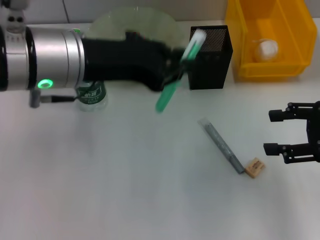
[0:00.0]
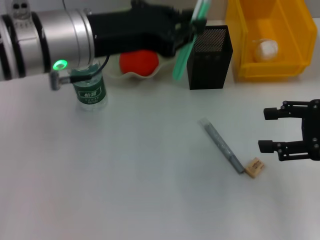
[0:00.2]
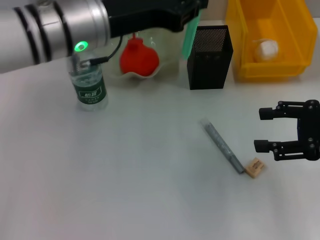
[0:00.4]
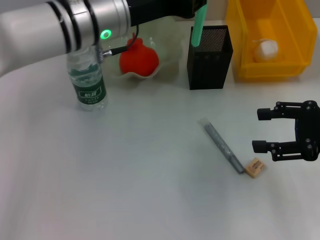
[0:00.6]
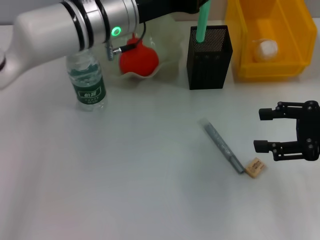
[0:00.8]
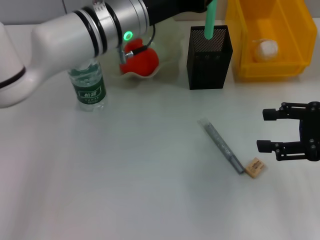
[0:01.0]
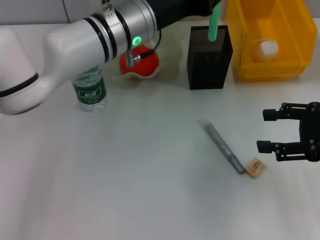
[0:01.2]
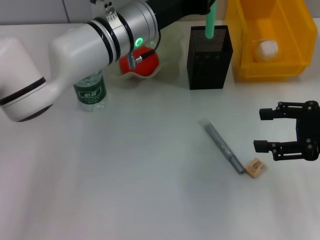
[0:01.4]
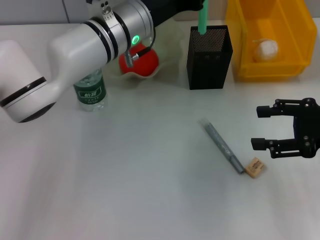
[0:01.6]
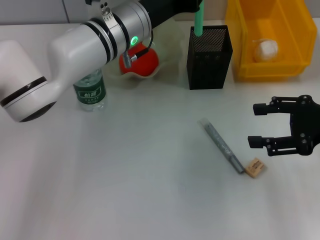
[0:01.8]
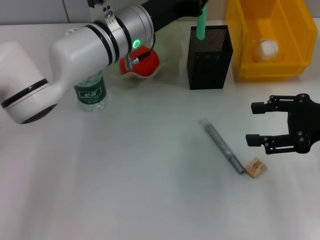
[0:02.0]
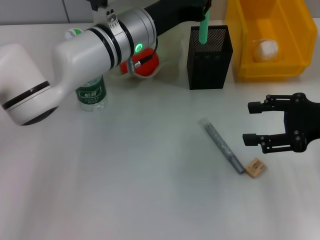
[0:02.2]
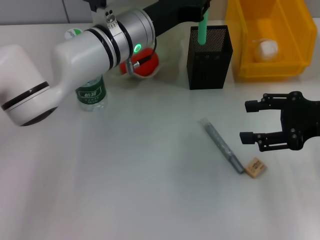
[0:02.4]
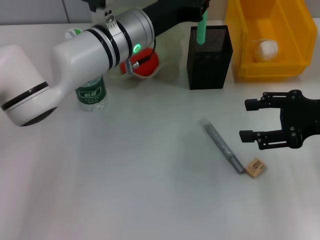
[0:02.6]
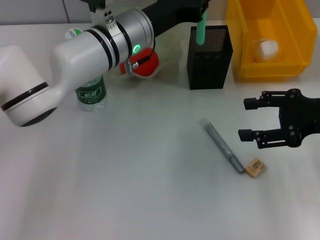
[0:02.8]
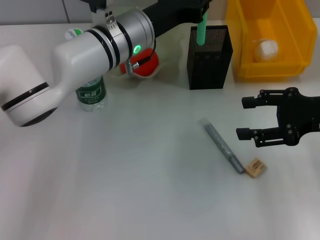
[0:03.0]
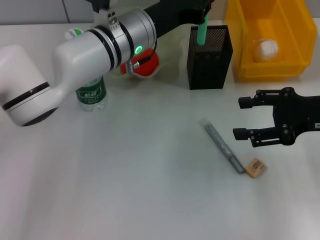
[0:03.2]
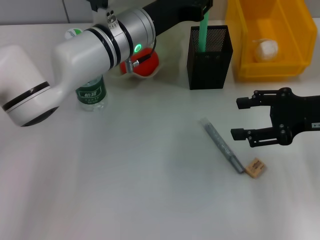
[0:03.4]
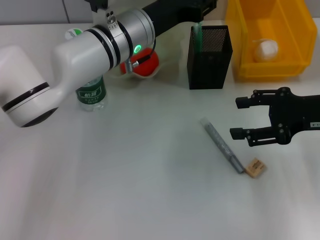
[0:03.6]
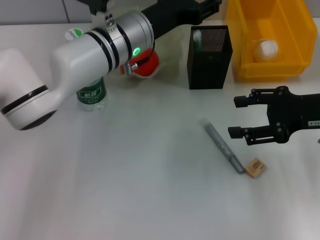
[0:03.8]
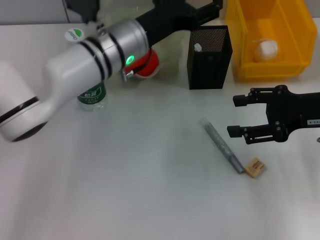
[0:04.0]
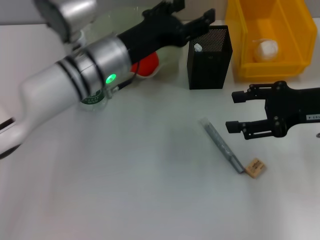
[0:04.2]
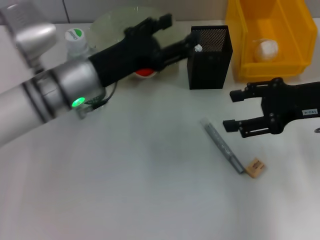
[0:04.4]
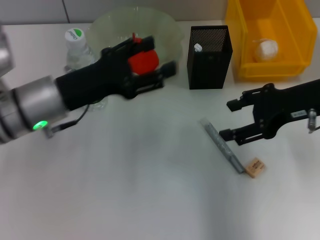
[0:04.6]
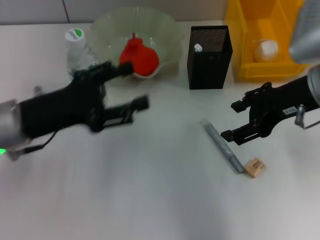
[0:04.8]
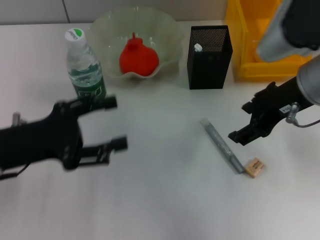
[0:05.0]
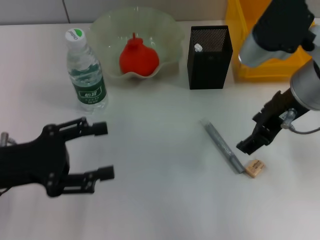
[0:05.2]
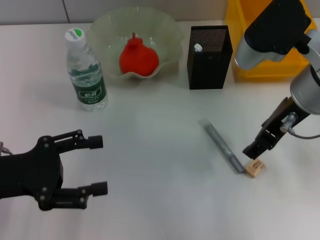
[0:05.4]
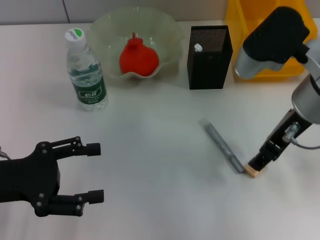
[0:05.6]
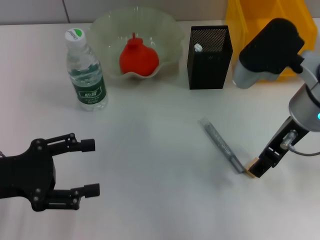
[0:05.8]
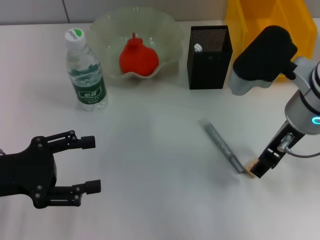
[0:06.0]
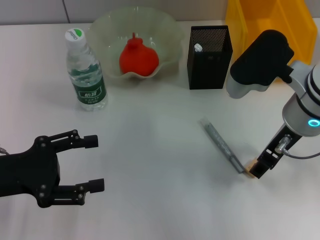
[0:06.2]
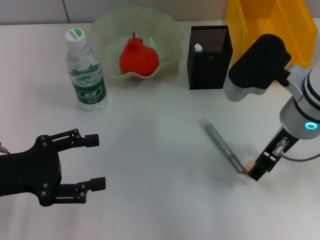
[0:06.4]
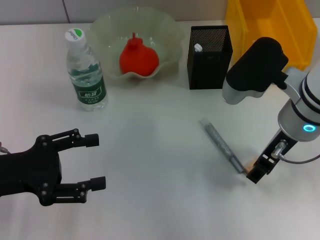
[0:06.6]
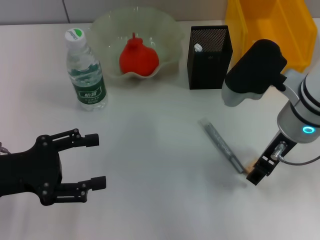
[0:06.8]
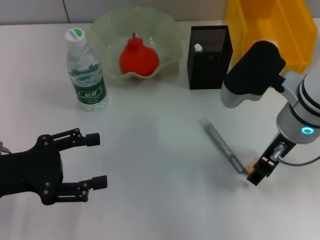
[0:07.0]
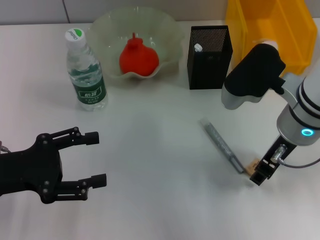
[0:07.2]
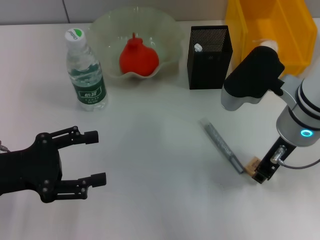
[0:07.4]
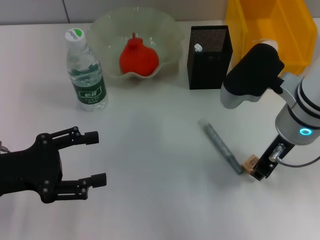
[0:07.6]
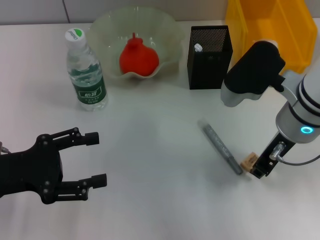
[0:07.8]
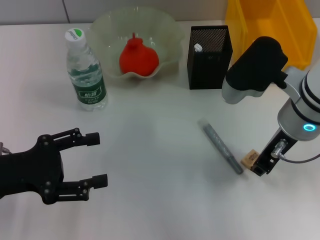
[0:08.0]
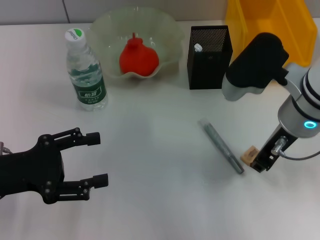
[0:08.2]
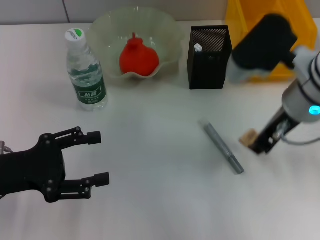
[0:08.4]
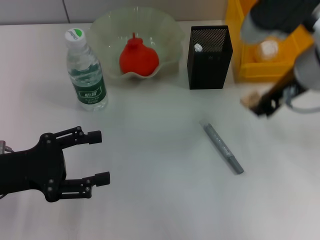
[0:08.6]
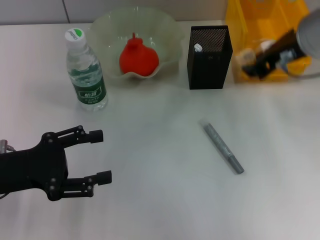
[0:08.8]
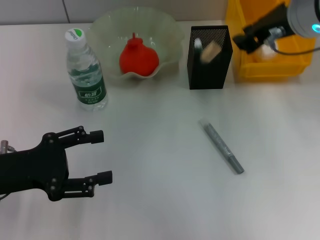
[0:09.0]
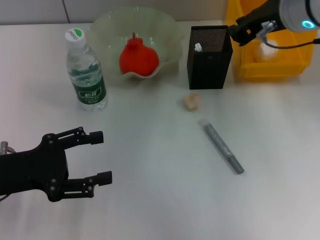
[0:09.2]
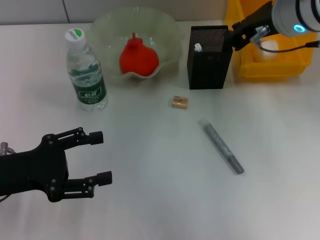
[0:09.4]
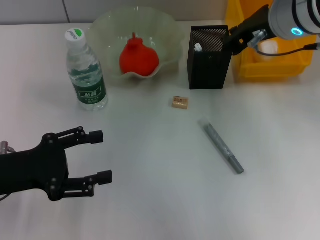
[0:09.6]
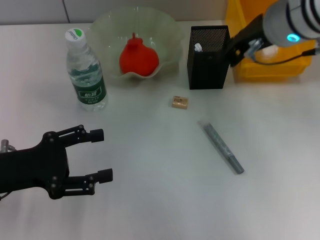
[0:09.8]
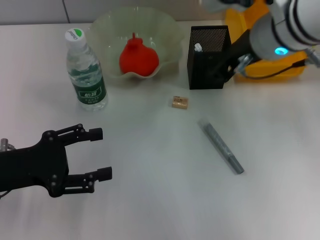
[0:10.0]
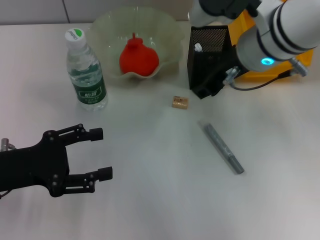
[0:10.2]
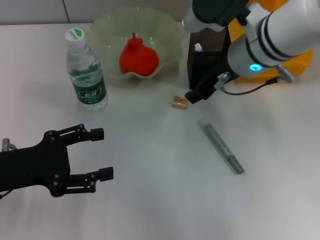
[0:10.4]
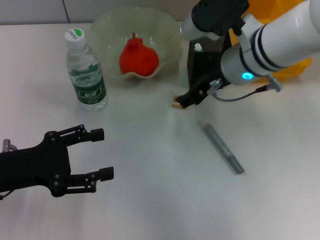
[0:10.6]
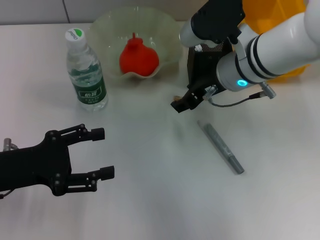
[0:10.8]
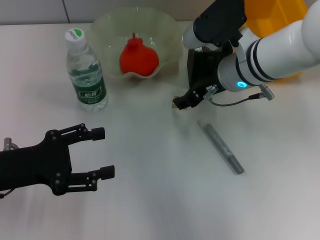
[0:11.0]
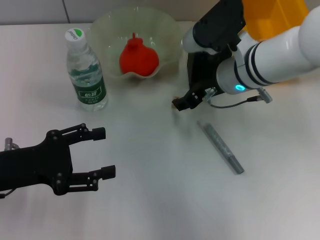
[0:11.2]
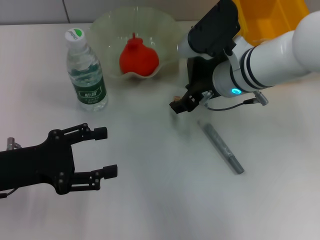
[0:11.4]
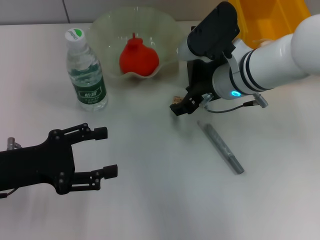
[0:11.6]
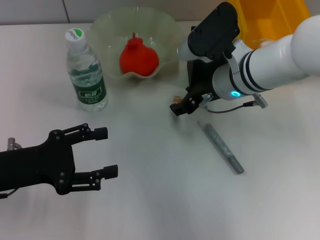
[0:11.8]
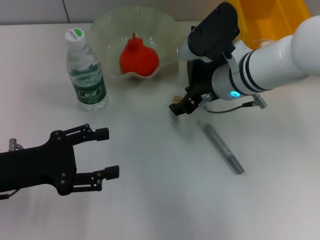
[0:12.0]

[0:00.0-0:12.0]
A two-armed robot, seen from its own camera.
Step, 0:00.0 to 0:04.0: Place the blue utility knife into the pen holder with the left hand.
Step, 0:04.4 to 0:07.2: Grab the eraser with the right hand.
0:00.0 to 0:01.6: The left gripper shifts approximately 15 cm forward, downward and to the right.
0:01.6 to 0:03.0: The grippers stay close to where they were, moving slightly.
0:03.0 to 0:04.4: The left gripper goes approximately 10 cm to the left and backward, and opens up.
0:04.4 to 0:06.0: The right gripper moves to the left, approximately 10 cm, while the left gripper goes some 20 cm to the left and backward.
0:06.0 to 0:07.6: The right gripper closes.
0:07.6 to 0:09.0: The right gripper heads upward, covering roughly 10 cm.
0:09.0 to 0:10.4: The right gripper moves downward and to the left, about 10 cm, and opens up.
0:10.4 to 0:12.0: The right gripper travels downward by some 5 cm.

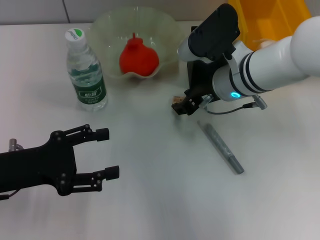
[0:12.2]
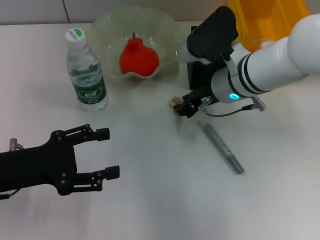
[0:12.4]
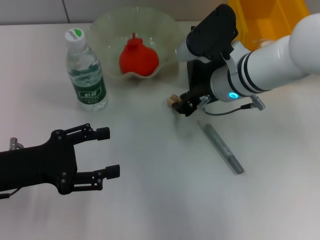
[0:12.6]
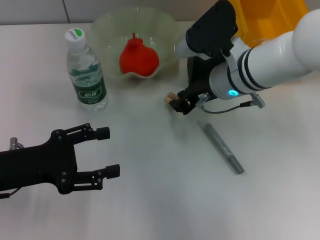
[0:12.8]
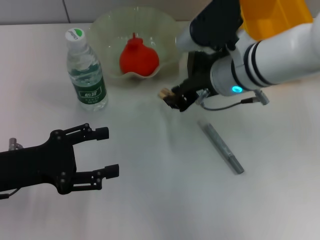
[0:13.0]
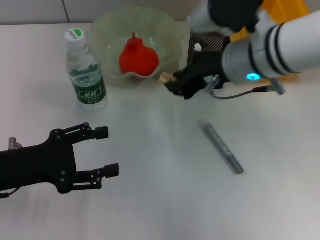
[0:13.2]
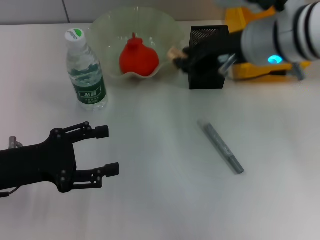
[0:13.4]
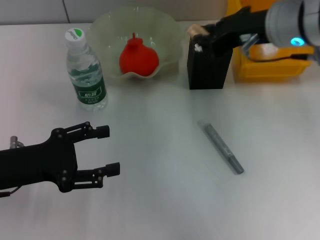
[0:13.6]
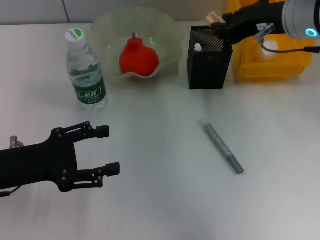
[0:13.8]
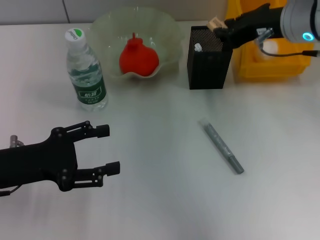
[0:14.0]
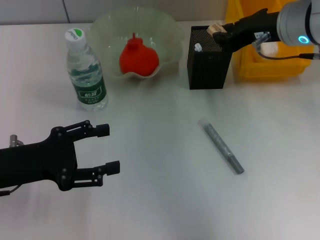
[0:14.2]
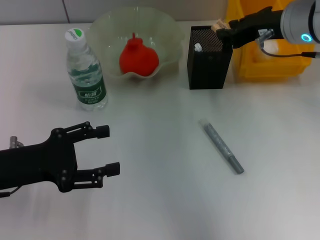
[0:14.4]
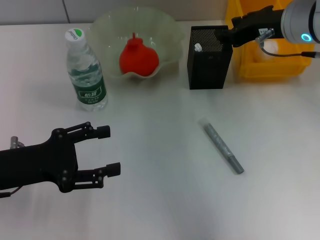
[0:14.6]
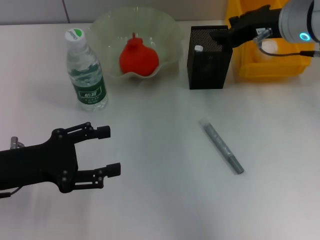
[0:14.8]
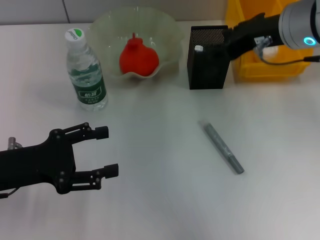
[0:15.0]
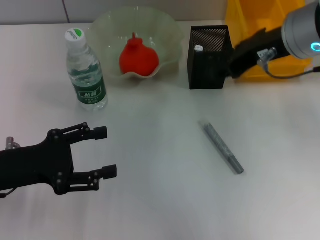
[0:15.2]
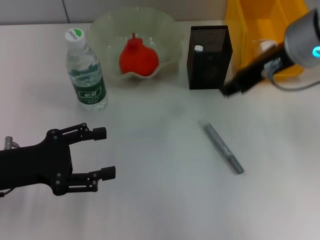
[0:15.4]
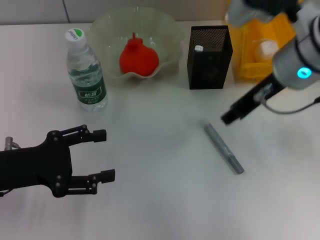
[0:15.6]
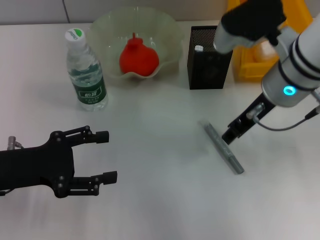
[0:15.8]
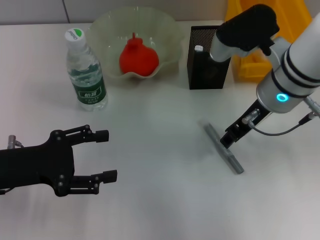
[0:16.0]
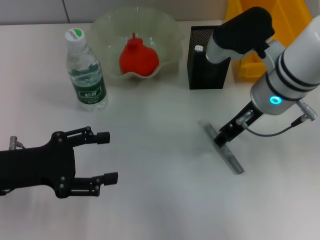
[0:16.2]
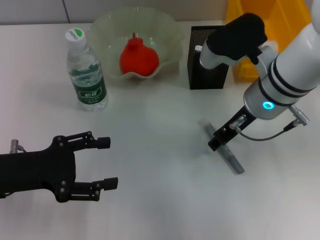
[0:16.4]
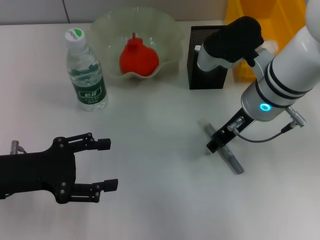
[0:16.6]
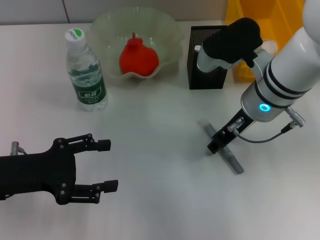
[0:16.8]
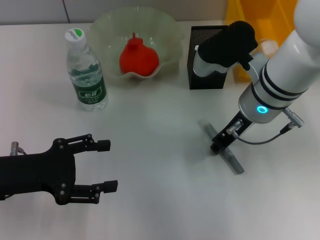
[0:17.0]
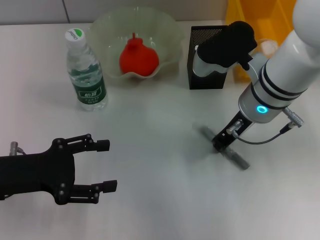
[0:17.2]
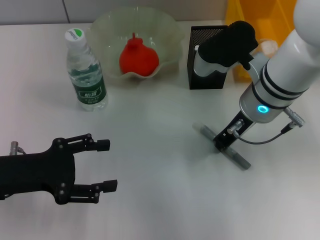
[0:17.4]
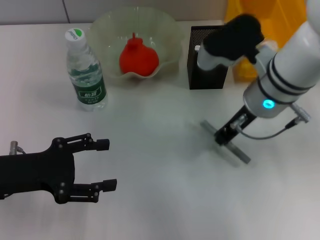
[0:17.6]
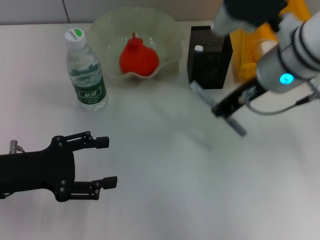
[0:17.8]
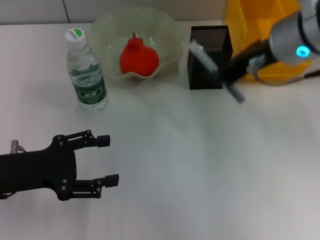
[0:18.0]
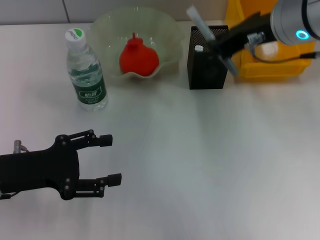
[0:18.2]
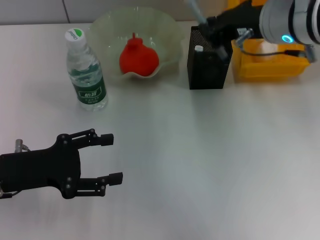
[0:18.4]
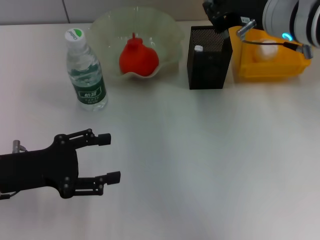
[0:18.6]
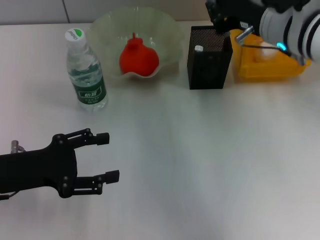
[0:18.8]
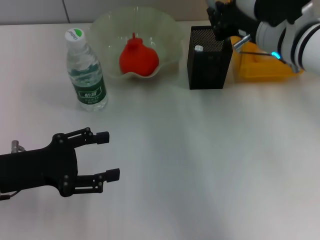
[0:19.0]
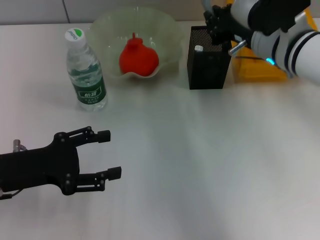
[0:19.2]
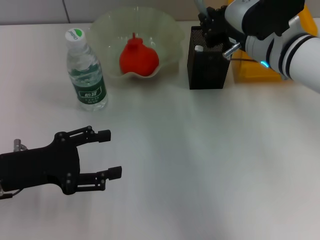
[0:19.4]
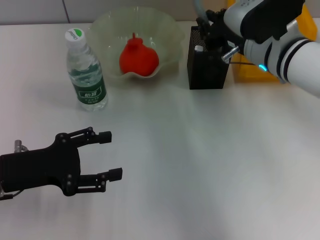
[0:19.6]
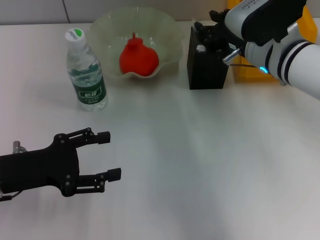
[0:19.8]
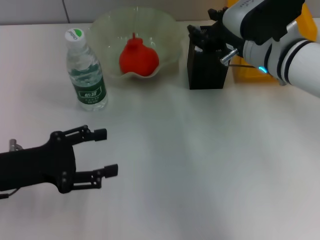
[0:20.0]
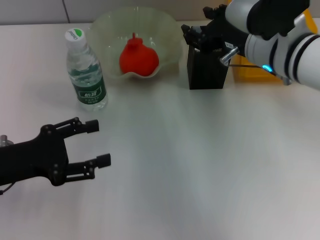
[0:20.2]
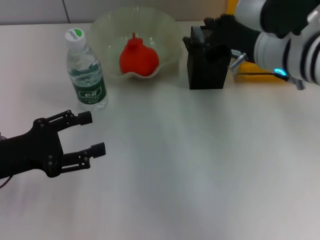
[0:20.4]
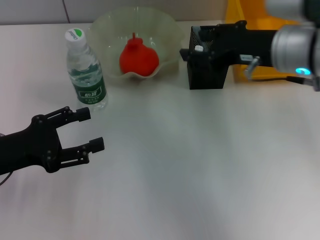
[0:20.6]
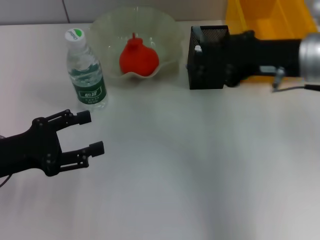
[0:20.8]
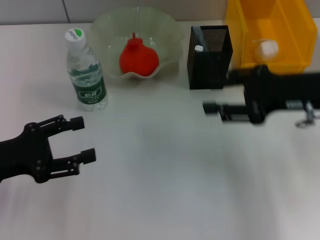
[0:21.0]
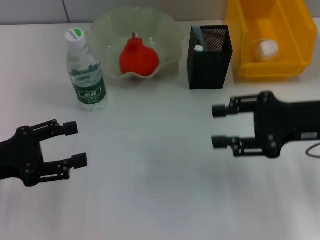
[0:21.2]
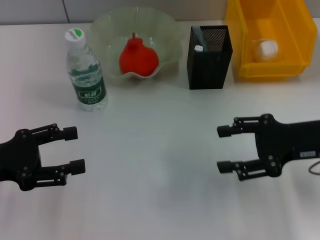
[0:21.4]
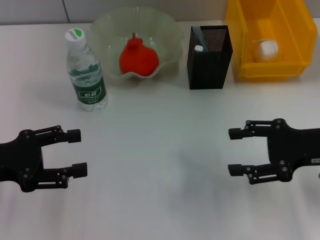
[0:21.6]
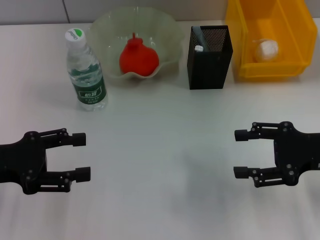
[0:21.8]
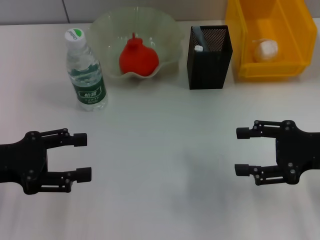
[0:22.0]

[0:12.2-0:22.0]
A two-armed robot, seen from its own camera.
Step, 0:12.2 to 0:15.0: Put the eraser into the pen holder with the right hand.
Step, 0:15.2 to 0:17.0: Grab the gray glue with the right hand.
Step, 0:17.2 to 0:20.0: Place the gray glue into the pen holder with the right hand.
0:12.2 to 0:13.6: The right gripper travels upward by approximately 10 cm, and closes its fingers.
0:13.6 to 0:15.0: The right gripper opens up.
0:15.0 to 0:16.4: The right gripper goes some 10 cm downward.
0:16.4 to 0:17.8: The right gripper moves upward, some 5 cm, and closes its fingers.
0:17.8 to 0:19.2: The right gripper changes place by some 5 cm.
0:19.2 to 0:20.6: The right gripper ends up approximately 5 cm from where it was, and opens.
0:20.6 to 0:22.0: The right gripper shifts about 15 cm to the right, downward and backward.
